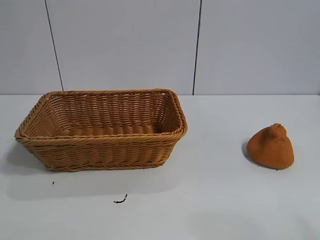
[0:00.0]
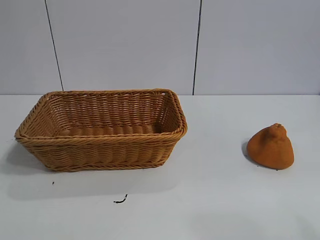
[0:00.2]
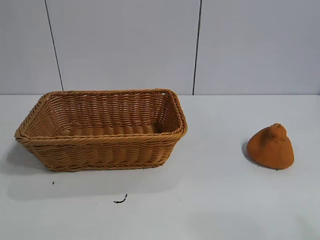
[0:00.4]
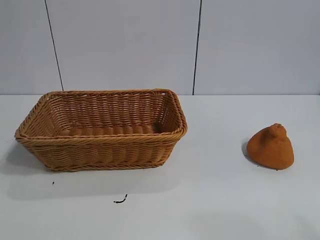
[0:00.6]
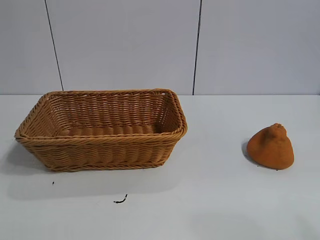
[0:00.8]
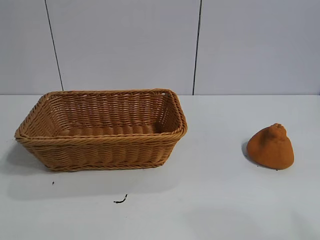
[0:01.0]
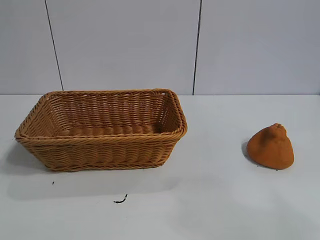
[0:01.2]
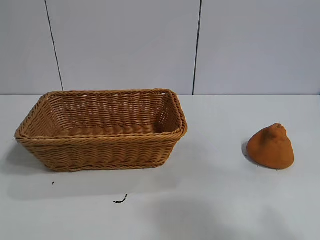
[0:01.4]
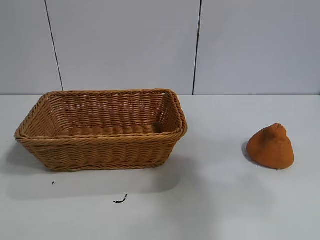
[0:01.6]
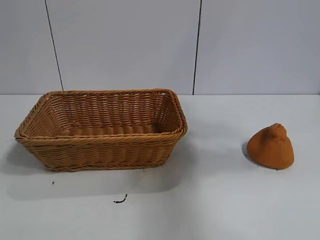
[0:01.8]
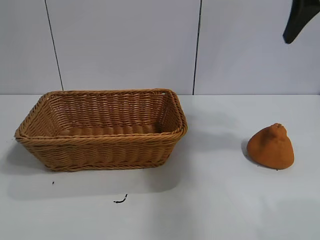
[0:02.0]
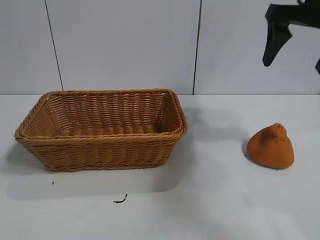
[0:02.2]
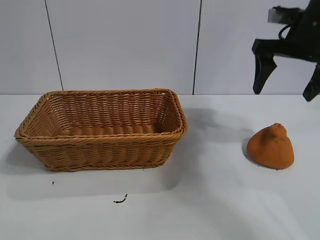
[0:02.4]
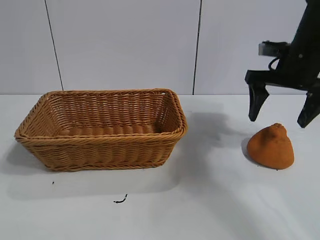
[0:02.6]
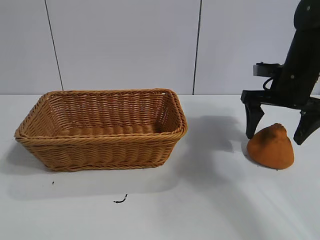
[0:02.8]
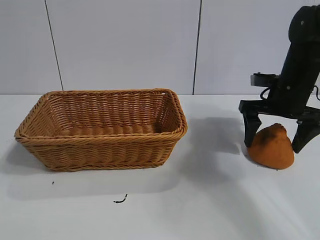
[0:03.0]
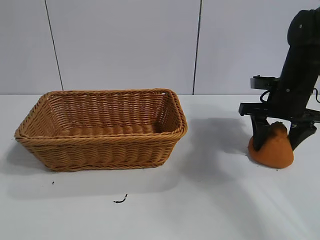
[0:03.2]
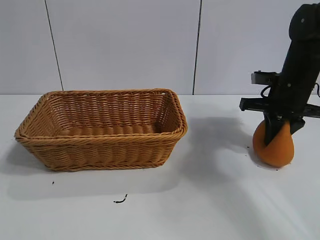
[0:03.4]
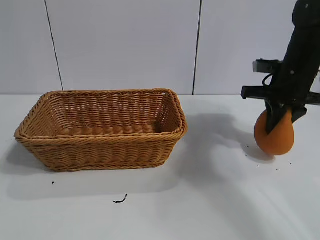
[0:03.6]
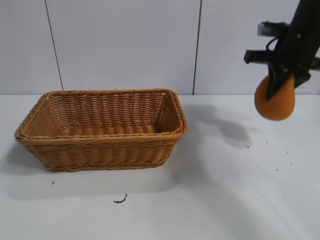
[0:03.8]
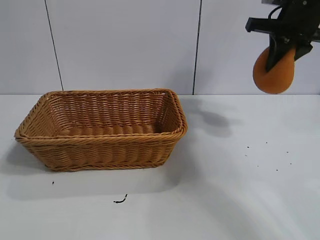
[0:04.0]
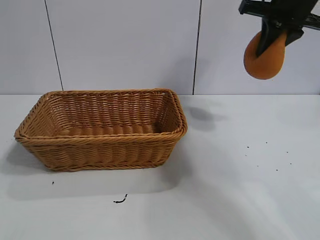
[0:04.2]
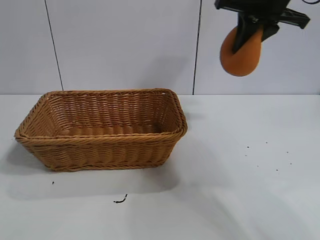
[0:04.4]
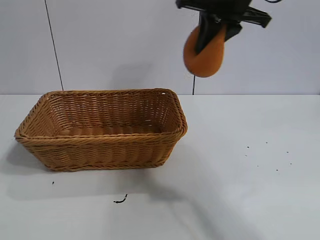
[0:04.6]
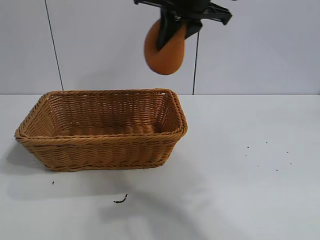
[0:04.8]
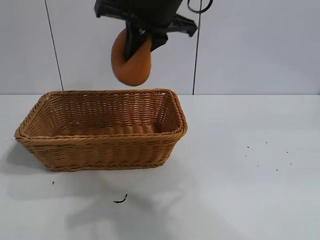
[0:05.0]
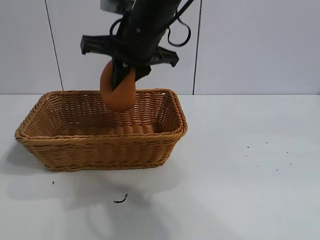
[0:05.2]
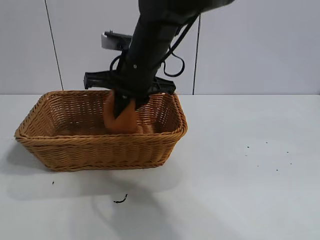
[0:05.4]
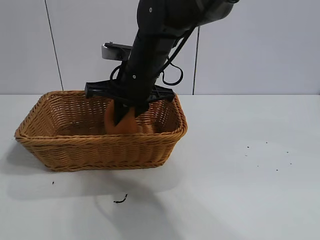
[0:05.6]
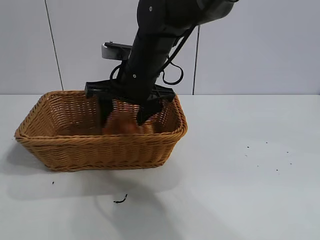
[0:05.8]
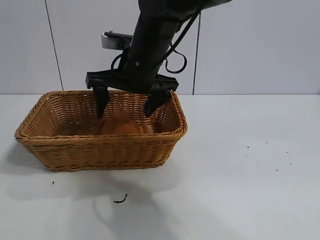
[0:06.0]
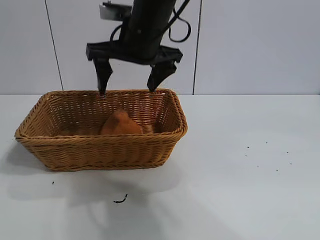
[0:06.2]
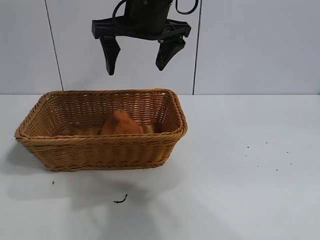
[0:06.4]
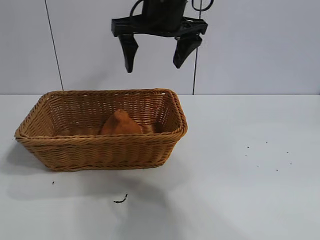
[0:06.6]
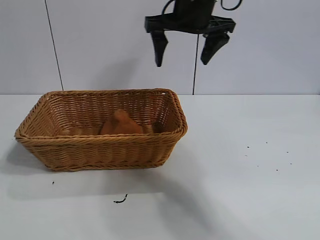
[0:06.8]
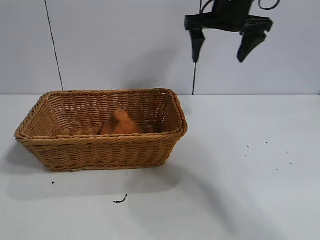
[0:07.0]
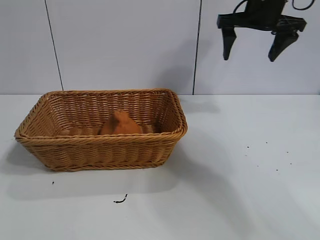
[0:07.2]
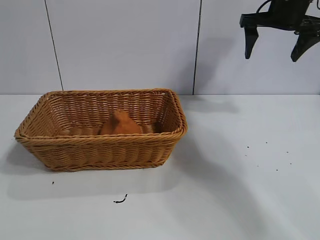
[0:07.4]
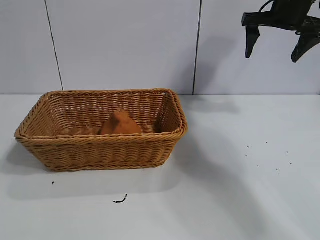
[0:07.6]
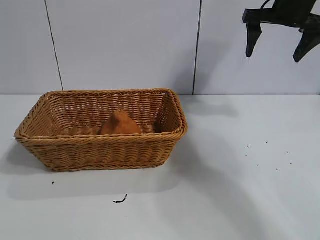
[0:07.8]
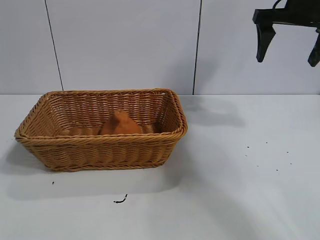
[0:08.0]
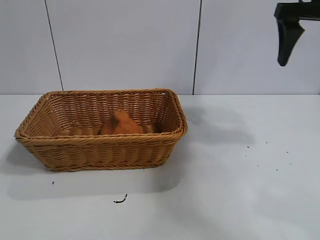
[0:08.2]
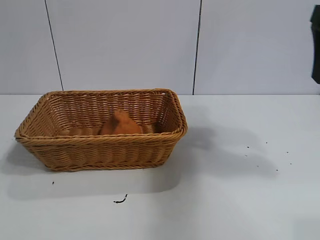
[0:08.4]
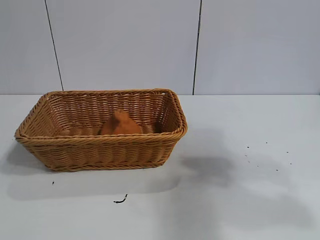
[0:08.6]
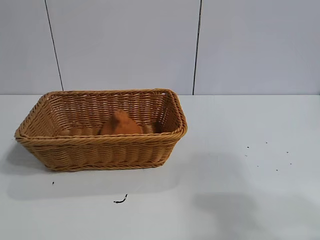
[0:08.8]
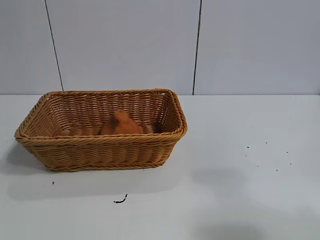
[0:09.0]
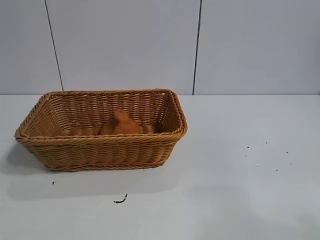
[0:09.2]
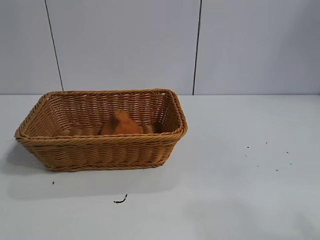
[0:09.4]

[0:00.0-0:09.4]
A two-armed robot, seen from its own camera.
Task of the whole recording: pick up the orange and put it into the basket.
Step, 0:00.8 to 0:03.4: Grasp the orange with right gripper.
Step, 0:03.6 to 0:06.0: Place the orange in the basket with right gripper.
